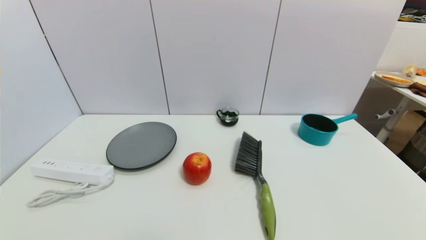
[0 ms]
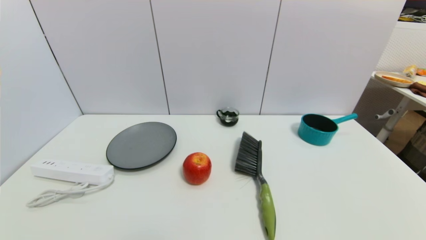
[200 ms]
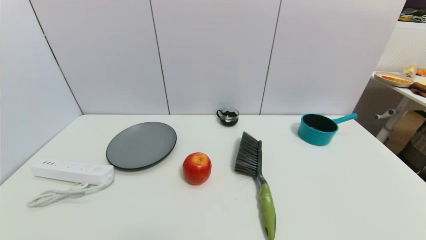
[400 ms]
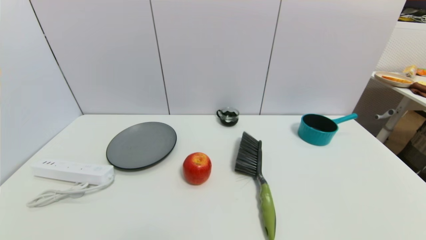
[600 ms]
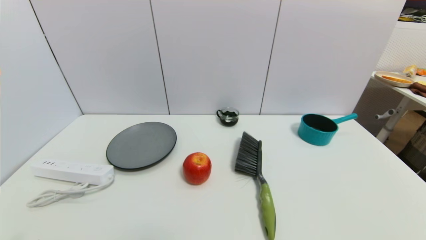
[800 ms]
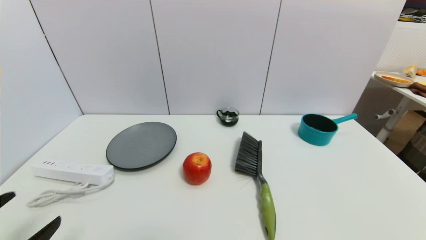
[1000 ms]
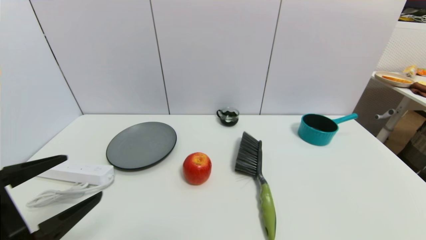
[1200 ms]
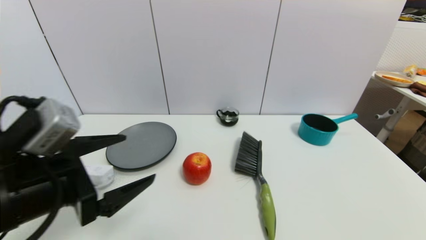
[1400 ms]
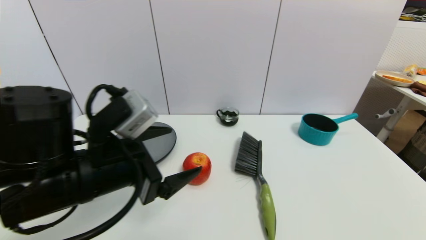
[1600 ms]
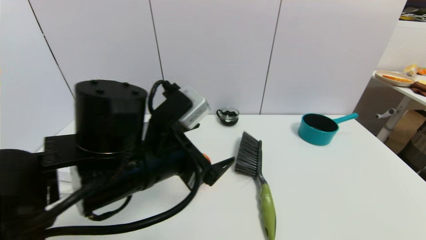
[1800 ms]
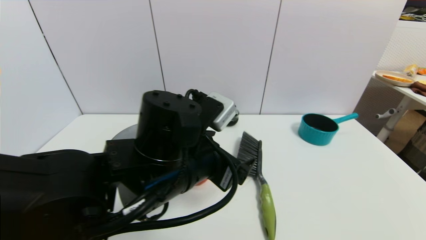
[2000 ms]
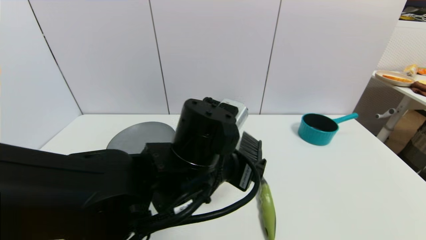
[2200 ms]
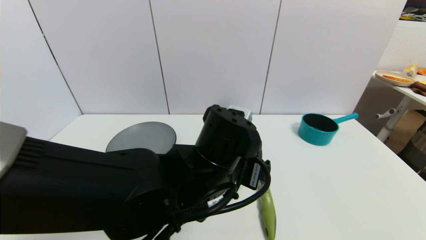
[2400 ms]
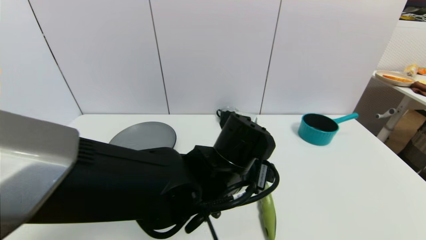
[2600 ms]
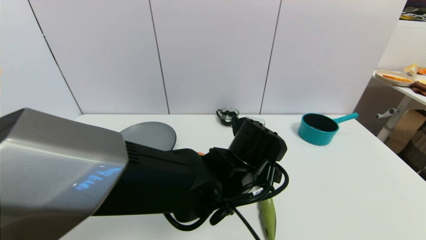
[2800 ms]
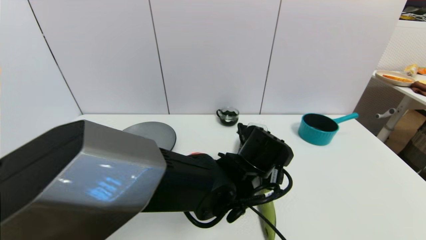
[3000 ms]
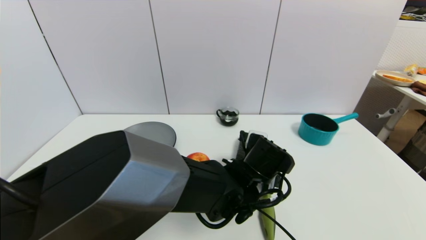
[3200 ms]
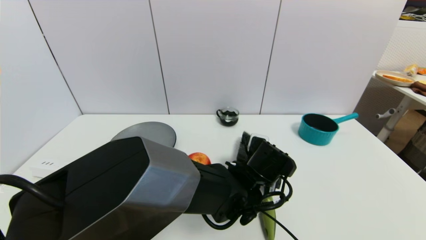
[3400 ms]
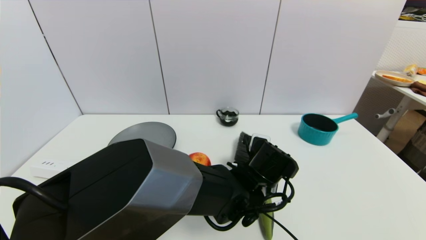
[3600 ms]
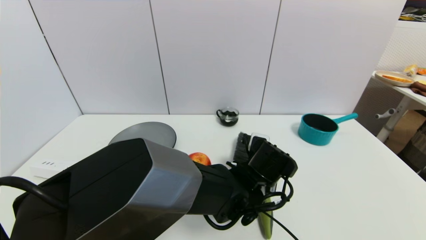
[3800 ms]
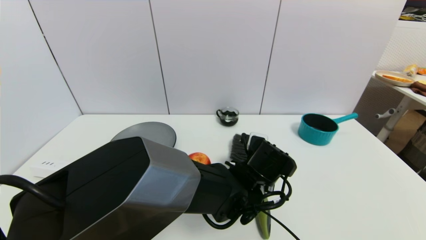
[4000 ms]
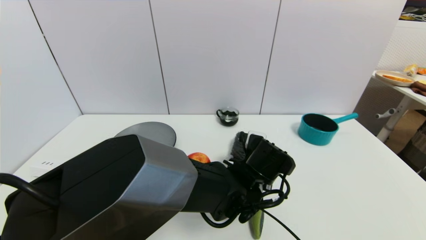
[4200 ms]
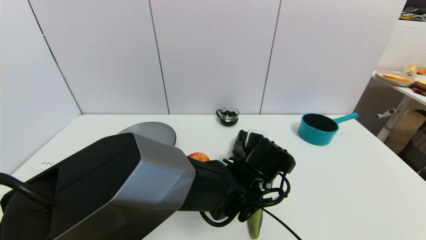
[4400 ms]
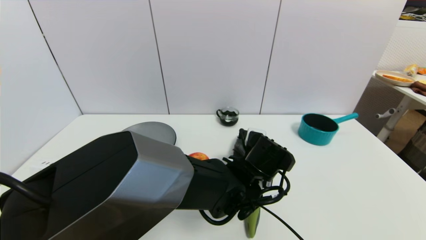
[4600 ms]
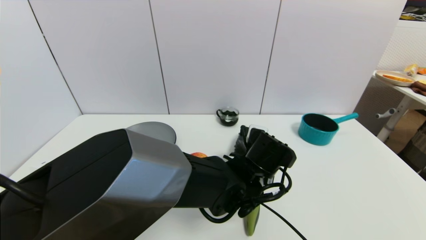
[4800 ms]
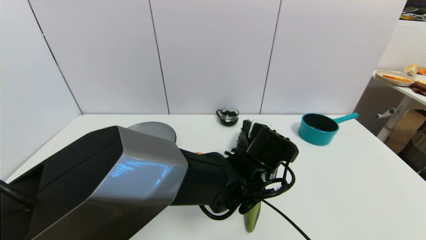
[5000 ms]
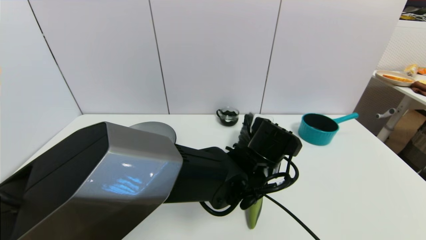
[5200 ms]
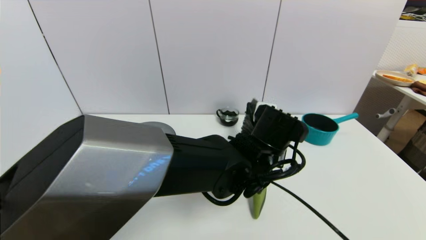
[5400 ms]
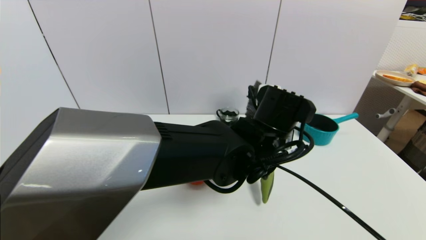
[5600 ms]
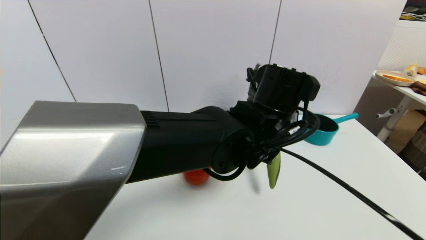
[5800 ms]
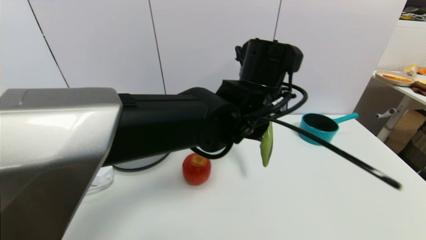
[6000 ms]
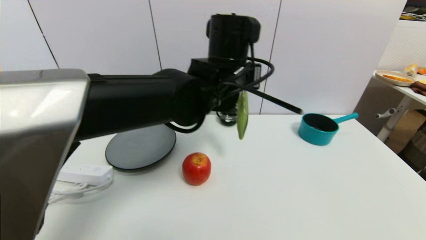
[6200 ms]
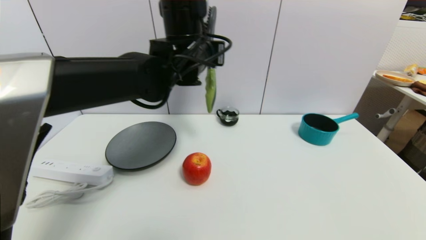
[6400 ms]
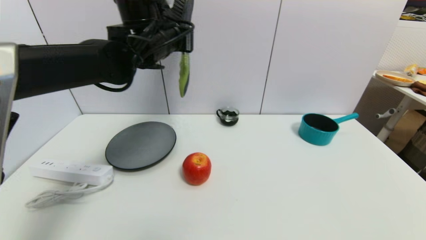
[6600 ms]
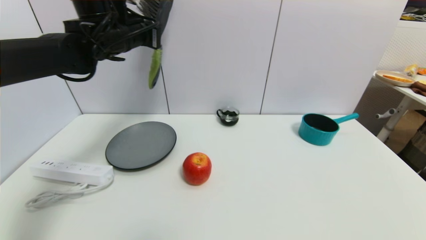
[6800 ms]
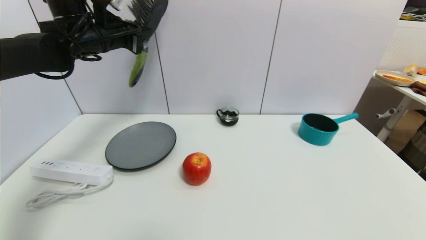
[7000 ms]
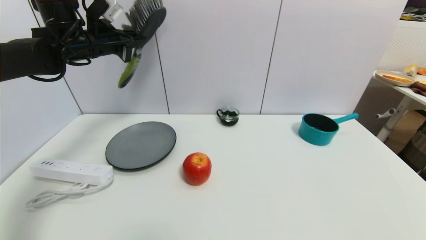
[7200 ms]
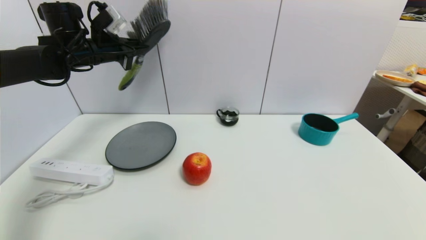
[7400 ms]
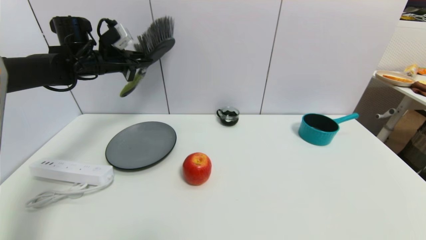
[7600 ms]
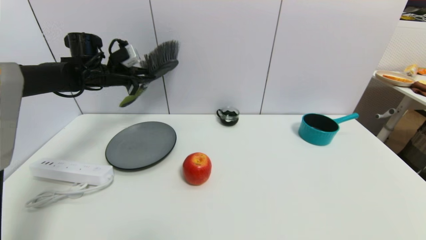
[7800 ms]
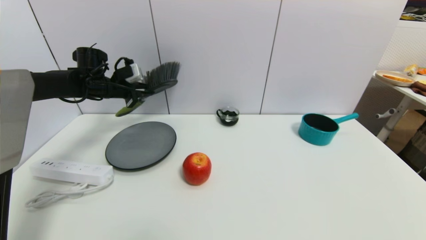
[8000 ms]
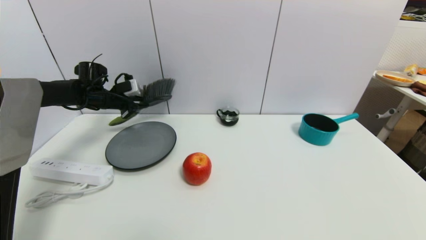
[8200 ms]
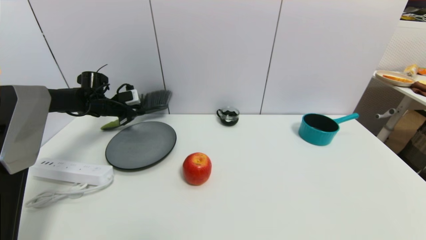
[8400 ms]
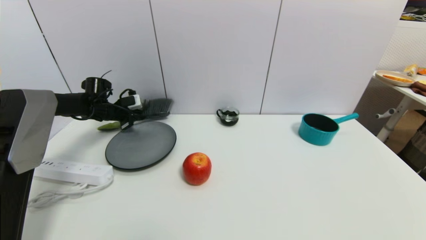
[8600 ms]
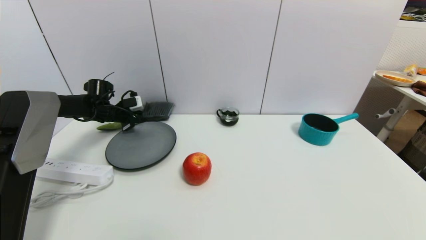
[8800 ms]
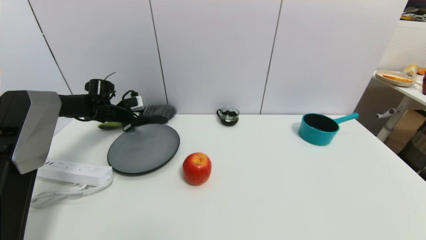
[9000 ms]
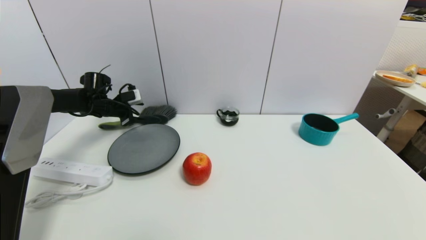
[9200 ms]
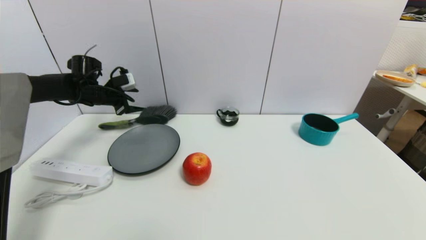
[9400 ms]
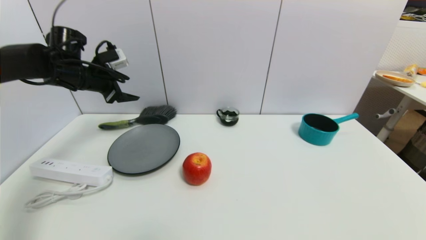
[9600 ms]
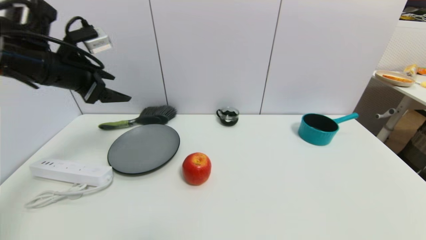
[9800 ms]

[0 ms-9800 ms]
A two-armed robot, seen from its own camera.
Task of the whole recording: put the brush in the designated position.
Step, 800 ms to 4400 ms: Grasp the brush with left gripper.
Step, 4600 ms to 8800 ms: Place the brush on the table with left gripper.
0 ms to 1400 ms: The left gripper is displaced forward, upward and to the right by some 25 cm.
1400 ms to 2800 ms: The left gripper moves to the right, some 25 cm.
2800 ms to 4200 ms: The left gripper heads downward, covering approximately 5 cm, and closes up.
4200 ms to 5600 ms: The left gripper moves upward, approximately 10 cm.
5600 ms to 7000 ms: The left gripper heads to the left, forward and upward, covering some 40 cm.
7000 ms to 8400 ms: The left gripper travels downward, to the left and forward by some 25 cm.
8400 ms to 9800 ms: The left gripper is displaced backward and upward by approximately 25 cm, and opens up.

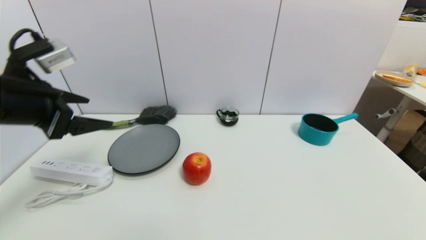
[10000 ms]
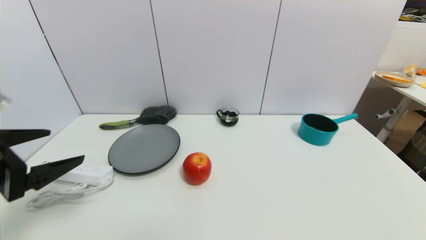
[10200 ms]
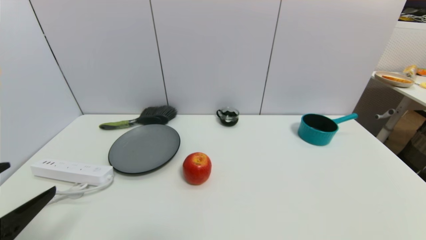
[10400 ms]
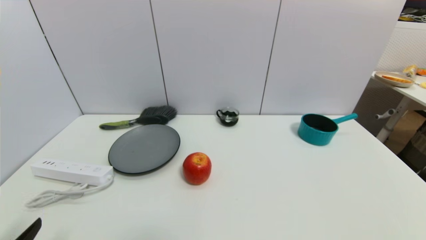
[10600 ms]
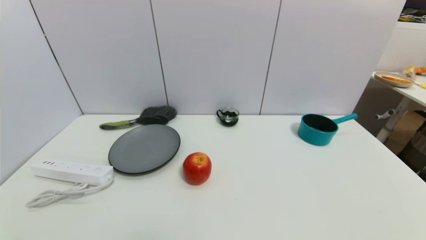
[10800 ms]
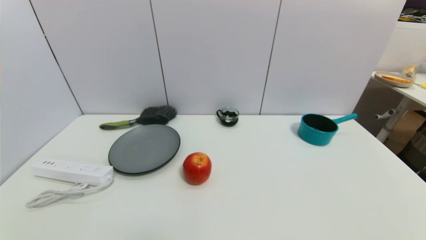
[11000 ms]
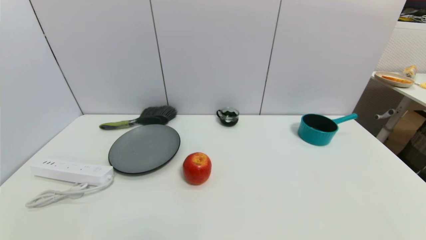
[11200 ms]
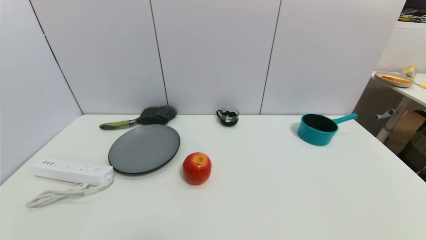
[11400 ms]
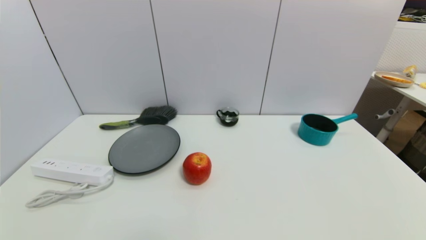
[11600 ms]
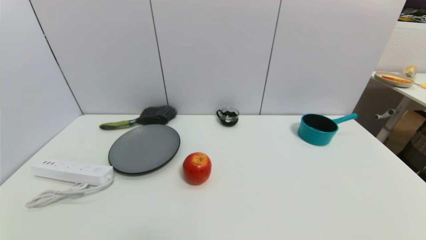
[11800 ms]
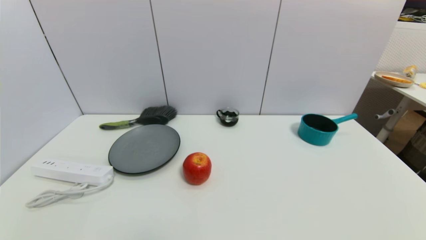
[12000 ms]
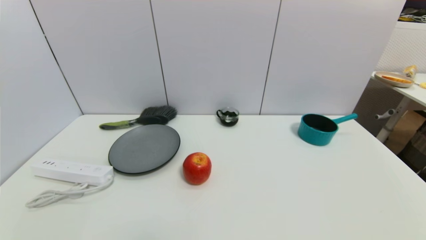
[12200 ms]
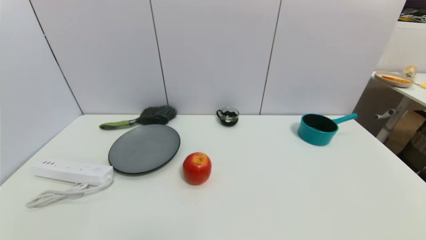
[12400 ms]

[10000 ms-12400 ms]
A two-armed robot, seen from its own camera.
Task of the whole recording: put the brush in the designated position.
10000 ms to 11200 ms: The left gripper travels backward and downward by approximately 30 cm.
11200 ms to 12400 ms: Neither gripper changes place.

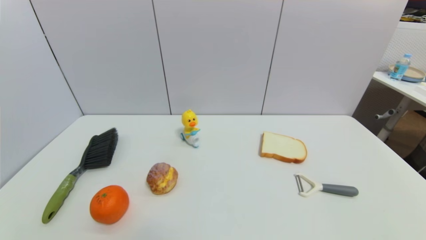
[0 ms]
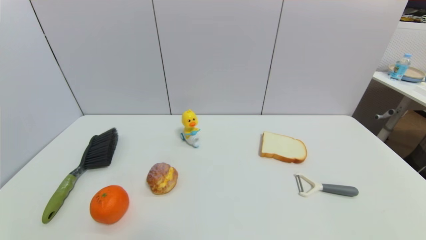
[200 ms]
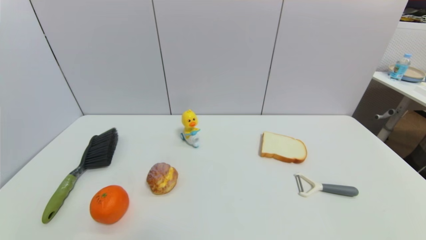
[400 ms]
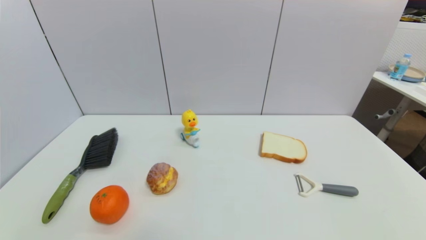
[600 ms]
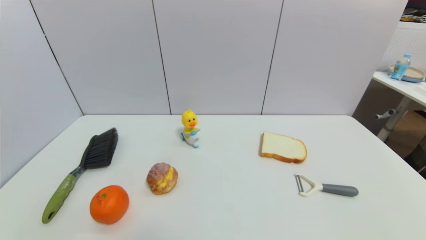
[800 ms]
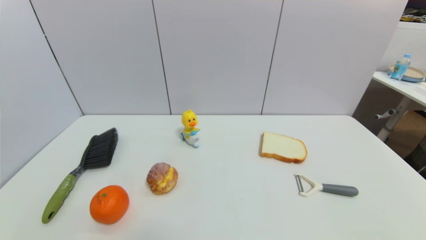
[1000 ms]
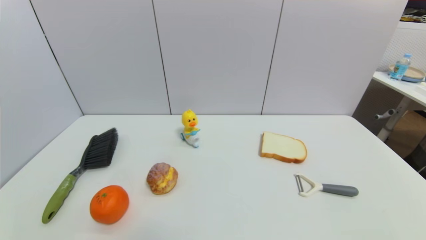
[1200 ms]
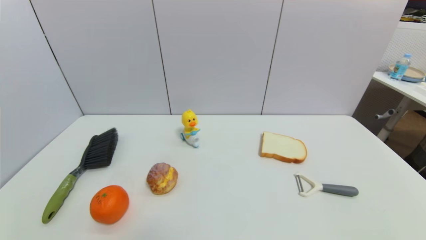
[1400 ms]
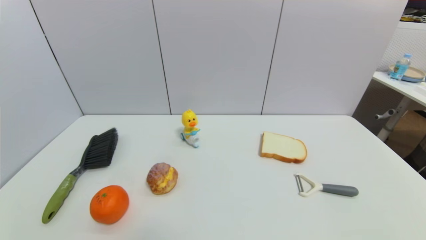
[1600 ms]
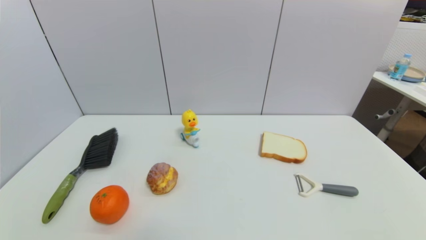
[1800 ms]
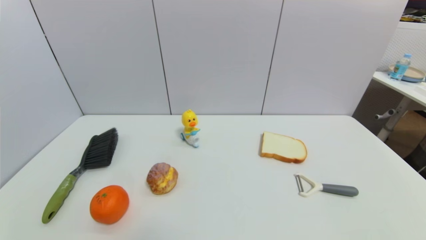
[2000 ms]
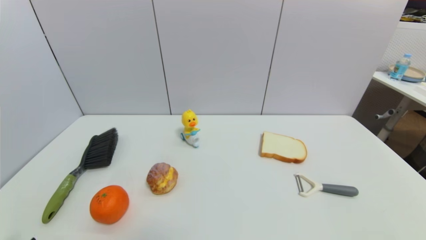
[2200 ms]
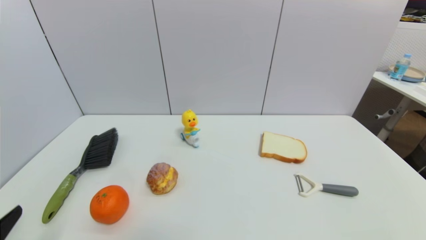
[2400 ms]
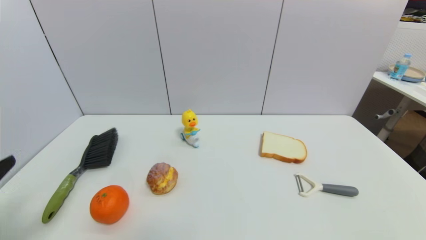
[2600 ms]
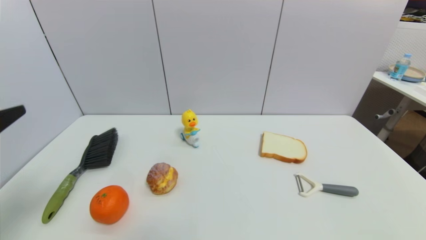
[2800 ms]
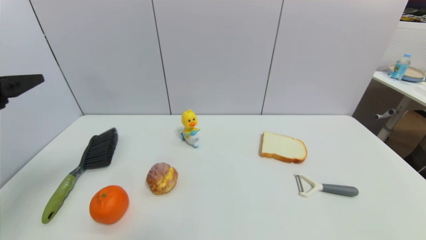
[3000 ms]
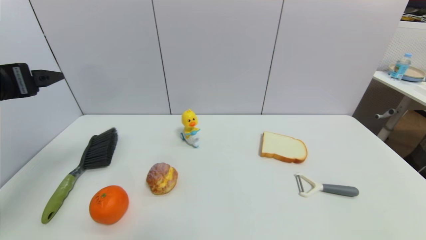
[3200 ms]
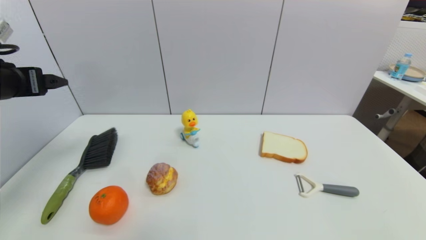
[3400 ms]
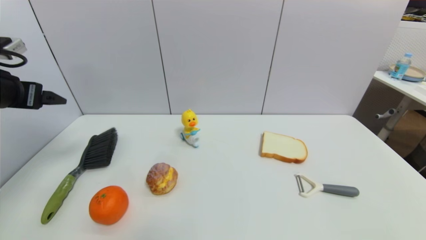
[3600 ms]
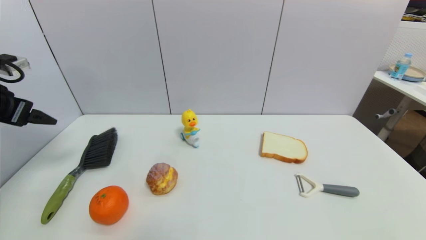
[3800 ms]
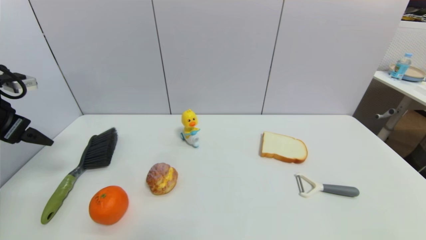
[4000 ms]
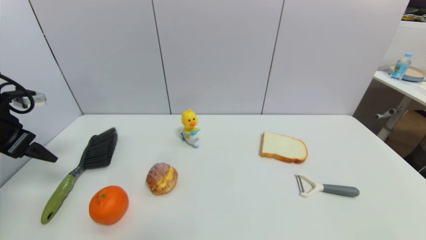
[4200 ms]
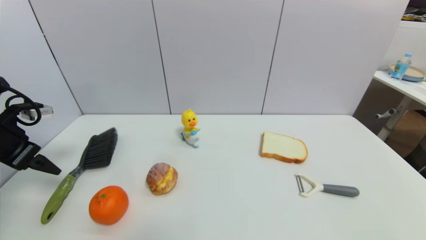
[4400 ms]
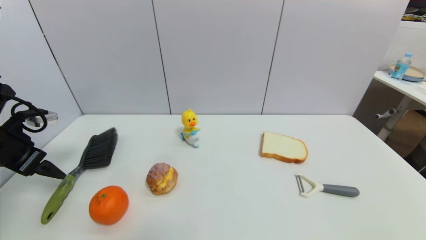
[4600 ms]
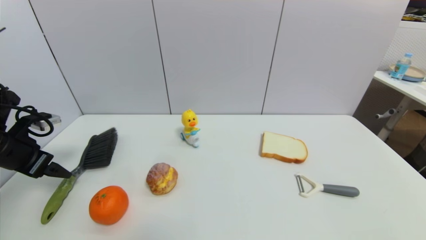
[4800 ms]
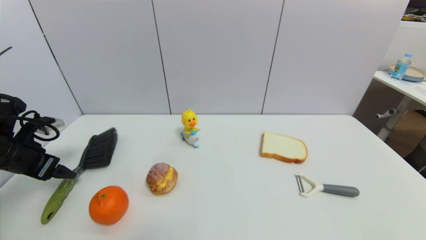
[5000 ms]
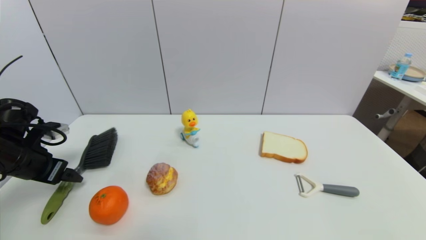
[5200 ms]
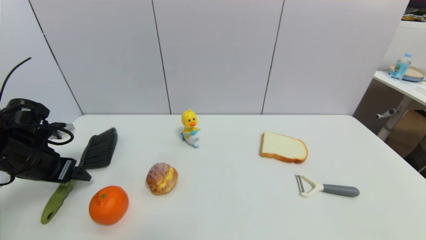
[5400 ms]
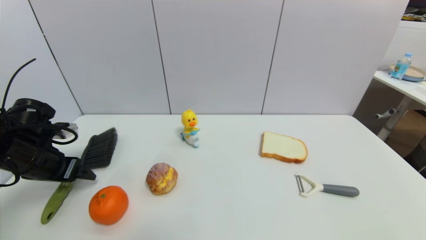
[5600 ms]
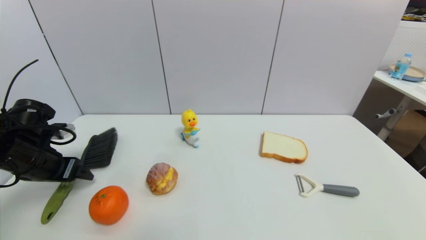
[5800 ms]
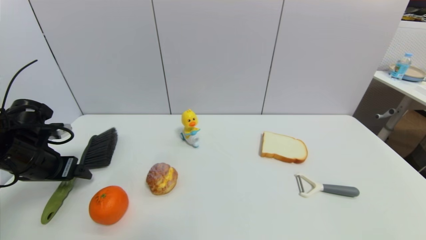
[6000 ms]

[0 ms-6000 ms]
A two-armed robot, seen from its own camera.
Task of the whole recording: put the brush in the designated position.
0 ms to 1600 ms: Both grippers stay put.
1600 ms to 3000 ms: The left gripper moves upward and forward, approximately 30 cm.
3000 ms to 4400 ms: The left gripper is displaced forward, downward and to the left by roughly 15 cm.
4400 ms to 6000 ms: The left gripper shifts some 5 cm downward.
